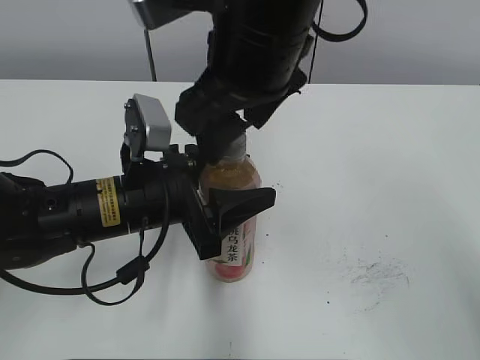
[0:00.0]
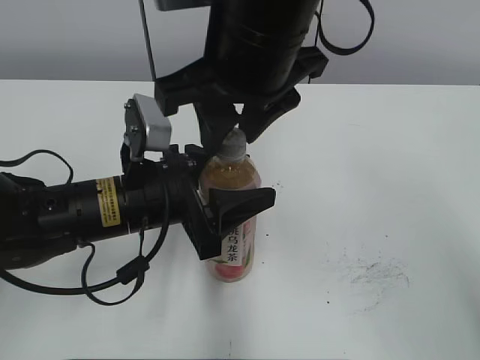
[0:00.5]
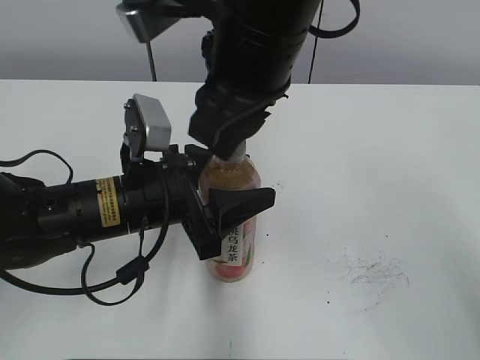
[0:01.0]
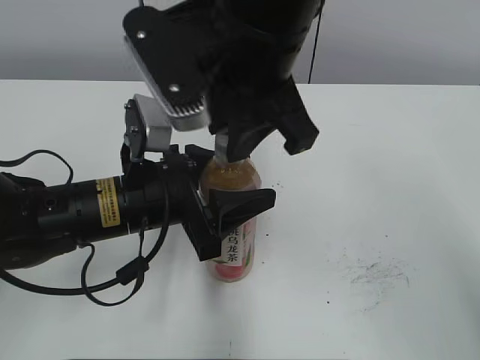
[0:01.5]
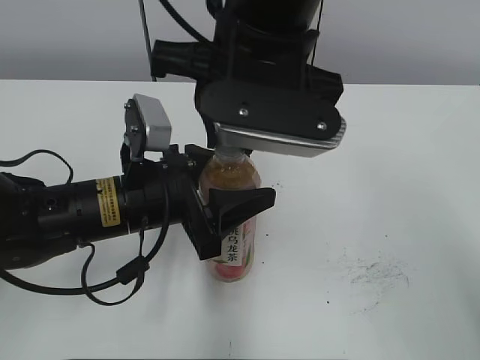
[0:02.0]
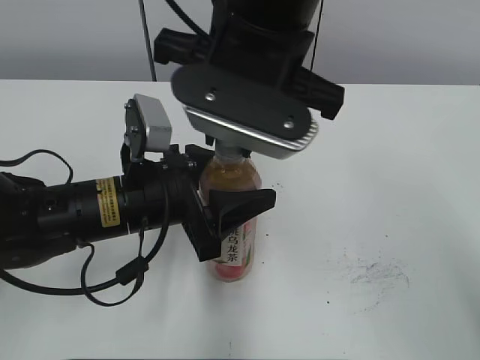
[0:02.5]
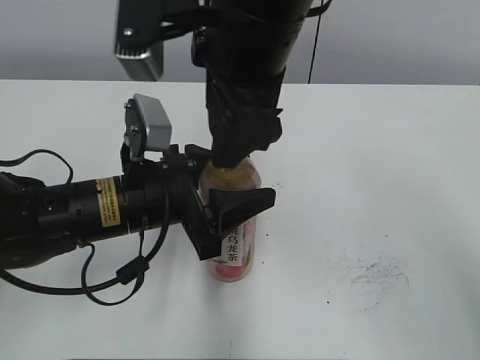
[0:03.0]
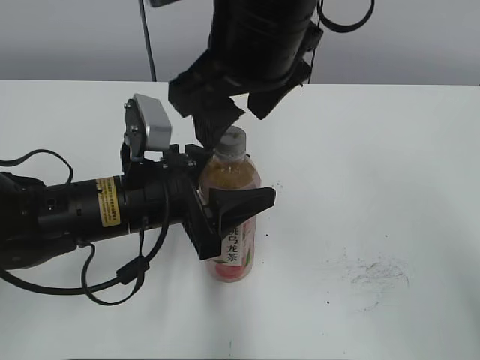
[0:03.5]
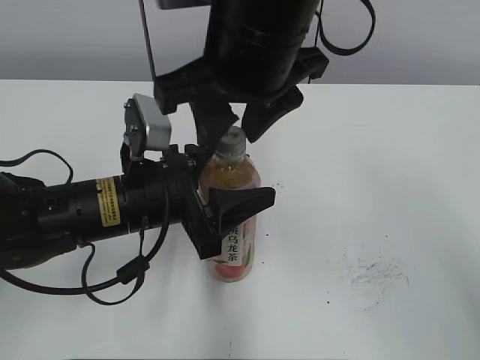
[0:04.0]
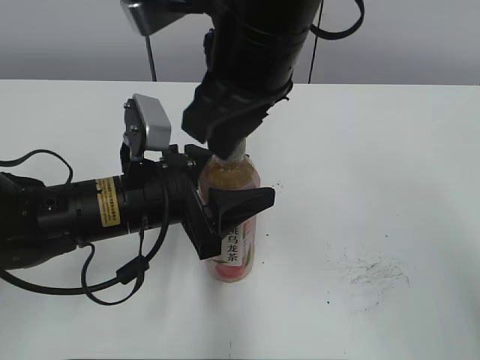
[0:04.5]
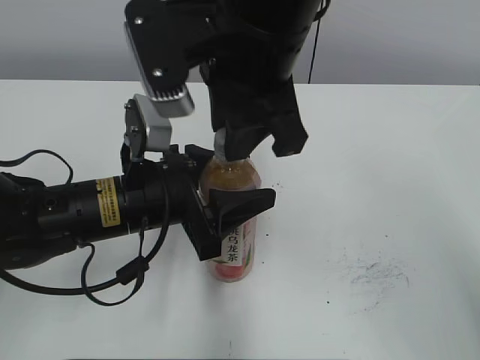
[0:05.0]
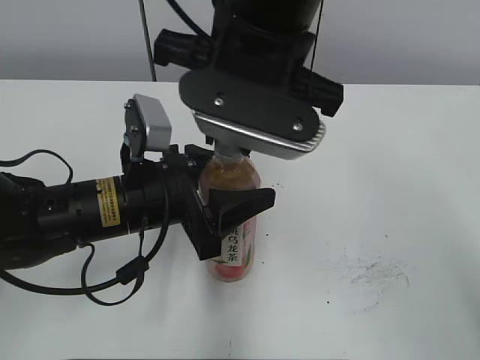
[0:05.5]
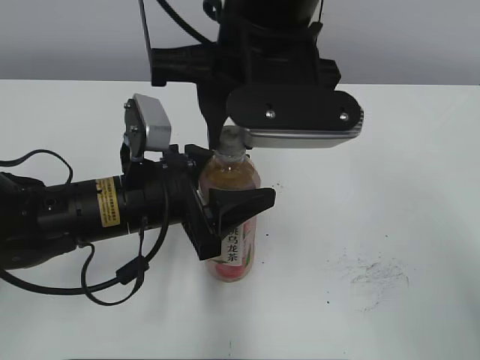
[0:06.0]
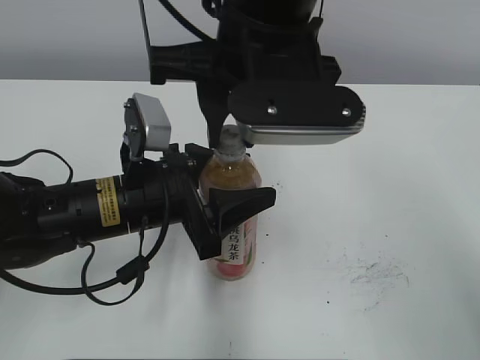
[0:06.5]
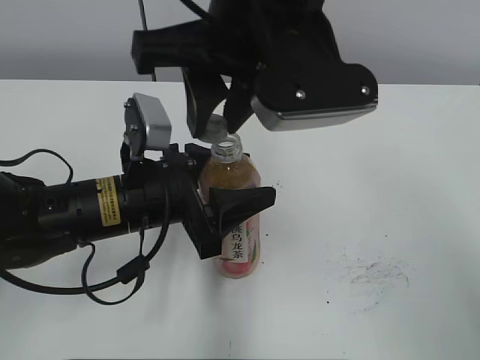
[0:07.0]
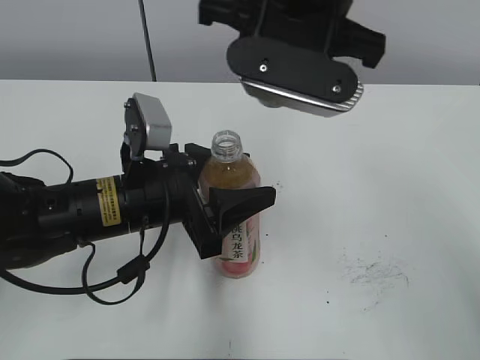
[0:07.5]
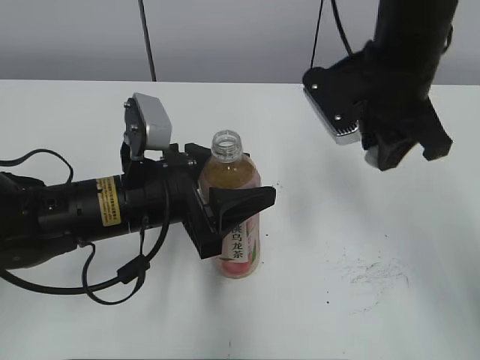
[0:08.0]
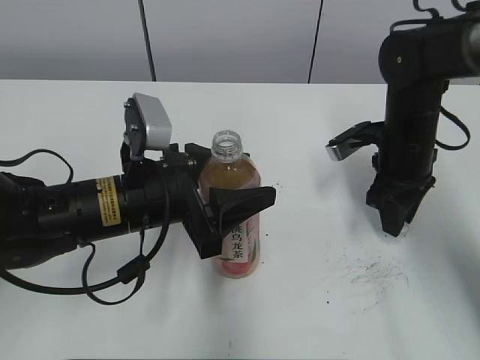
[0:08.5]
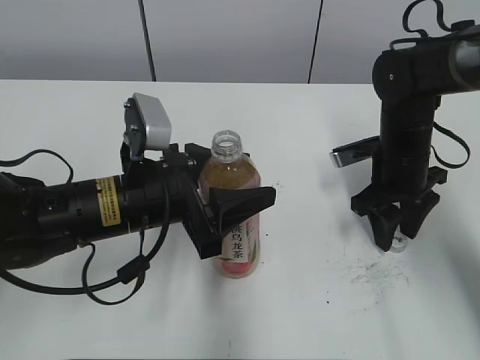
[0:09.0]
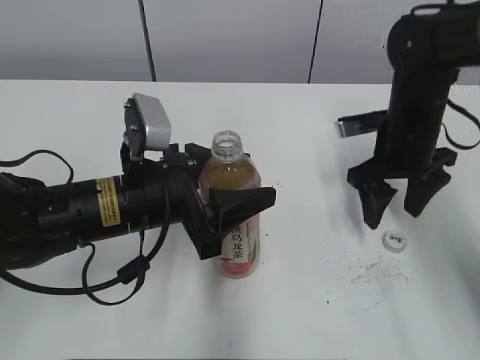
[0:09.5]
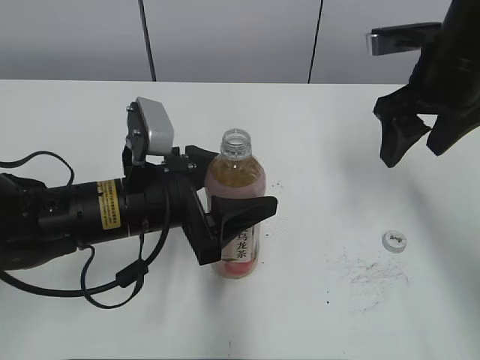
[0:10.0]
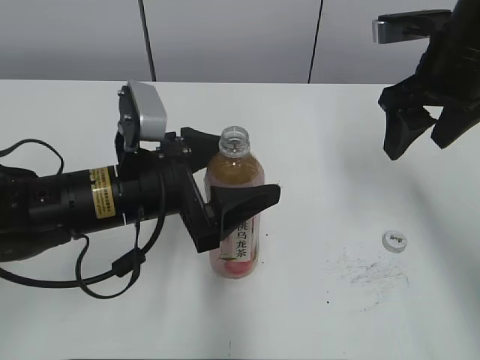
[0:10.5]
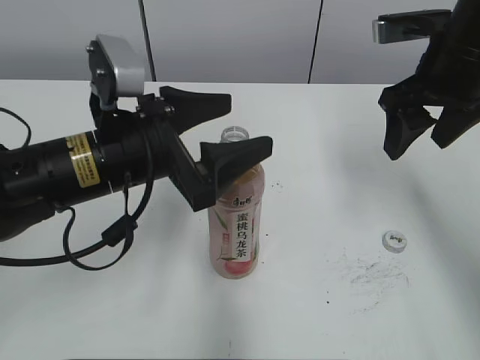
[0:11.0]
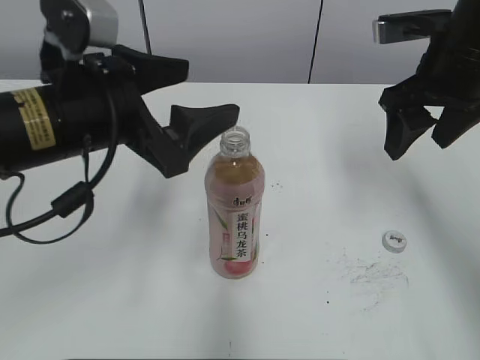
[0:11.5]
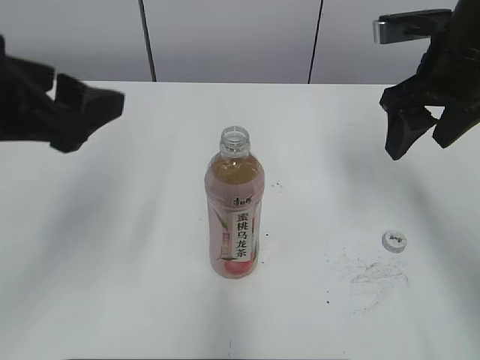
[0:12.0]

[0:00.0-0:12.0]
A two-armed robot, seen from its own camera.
Step, 0:07.5 to 0:09.5: Place the bottle cap on the right.
Step, 0:10.0 to 0:11.5: Place the Peach Oolong Tea with the left hand.
0:00.0 to 0:02.0: The right gripper closes.
0:02.0 to 0:04.0: The right gripper opens up.
0:04.0 to 0:06.0: The right gripper closes its fingers.
0:06.0 to 0:08.0: The right gripper shifts about 15 cm to the right, forward and downward.
0:08.0 to 0:10.0: The left gripper opens up. Meanwhile the right gripper travels to the right by about 5 cm, travels downward and back again, about 15 cm each way, and opens up.
0:10.0 to 0:12.0: The left gripper moves upward and to the left, about 20 cm, and opens.

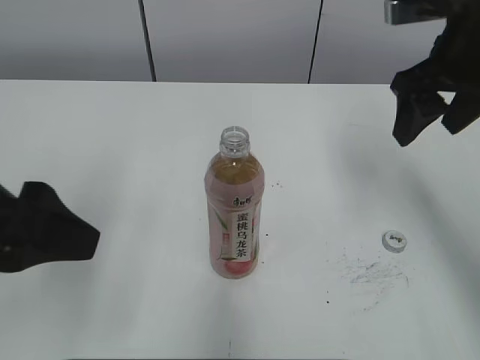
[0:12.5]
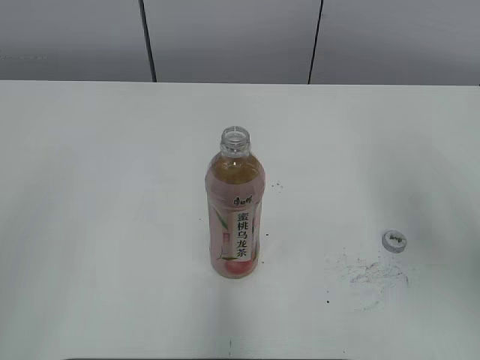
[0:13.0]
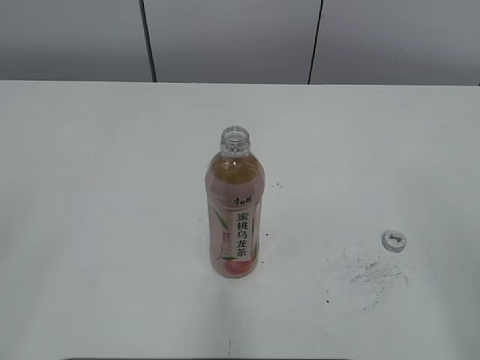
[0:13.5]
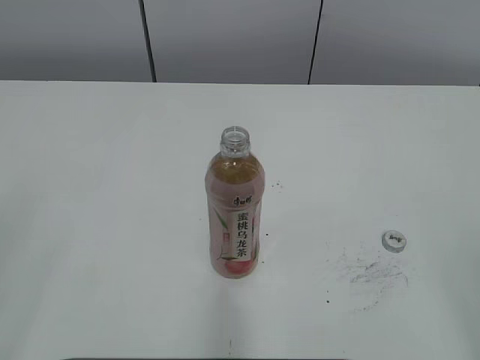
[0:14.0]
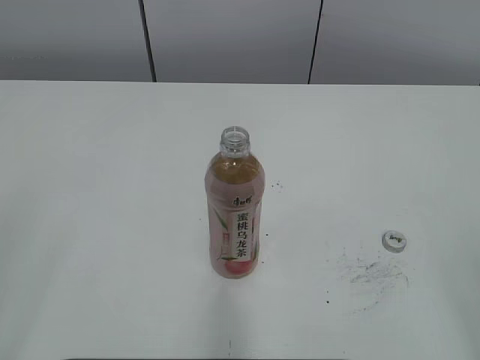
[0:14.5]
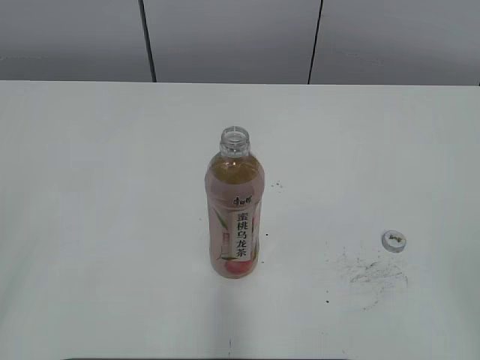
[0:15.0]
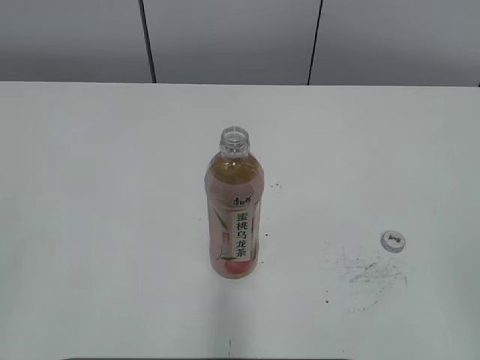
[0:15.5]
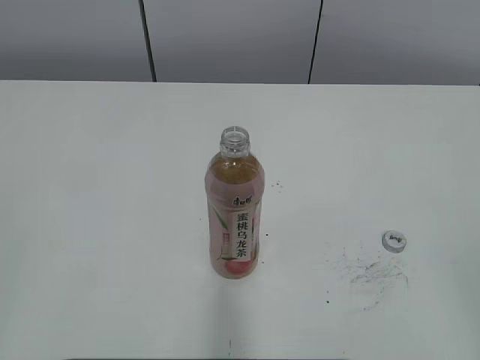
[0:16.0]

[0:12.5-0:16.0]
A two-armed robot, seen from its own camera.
0:12.5 to 0:14.5: The left gripper goes roughly 15 cm backward and to the left, while the right gripper shifts roughly 30 cm backward.

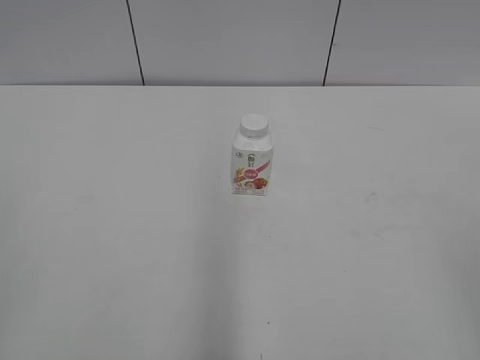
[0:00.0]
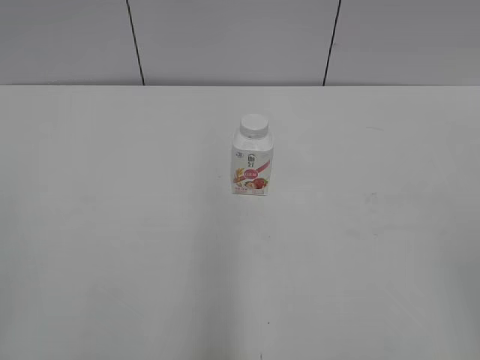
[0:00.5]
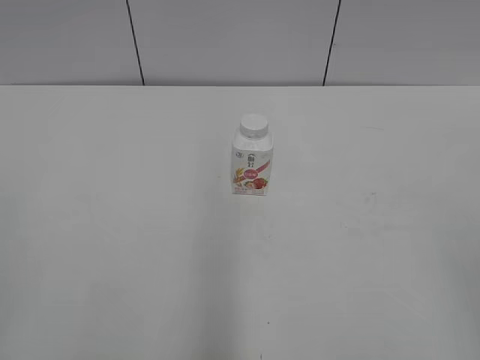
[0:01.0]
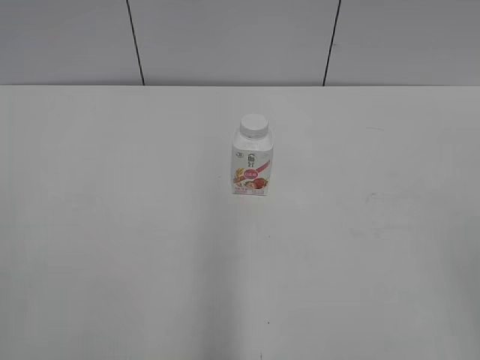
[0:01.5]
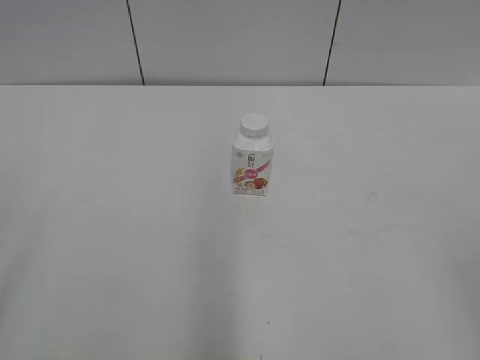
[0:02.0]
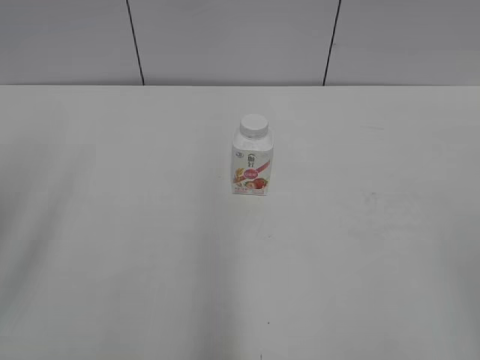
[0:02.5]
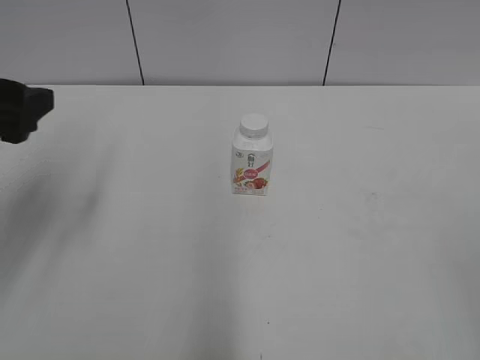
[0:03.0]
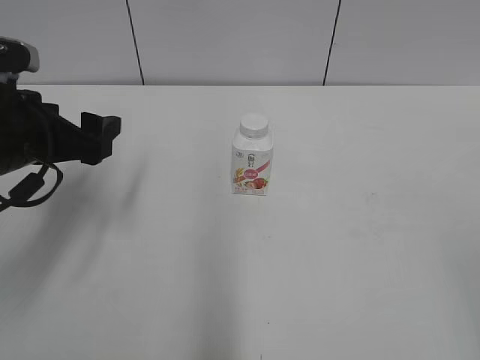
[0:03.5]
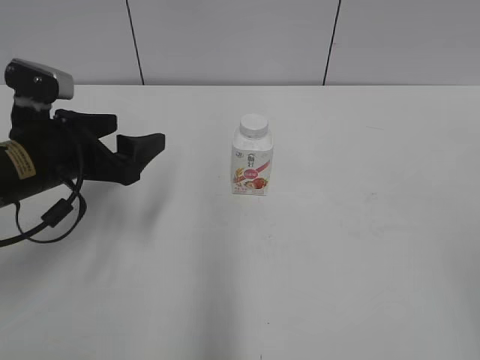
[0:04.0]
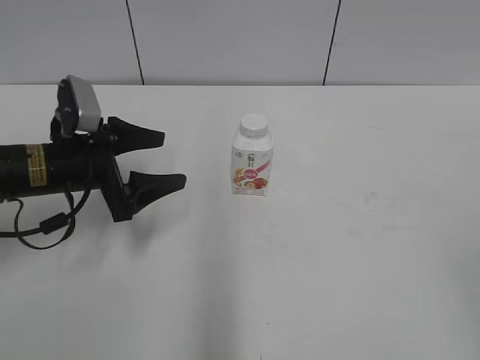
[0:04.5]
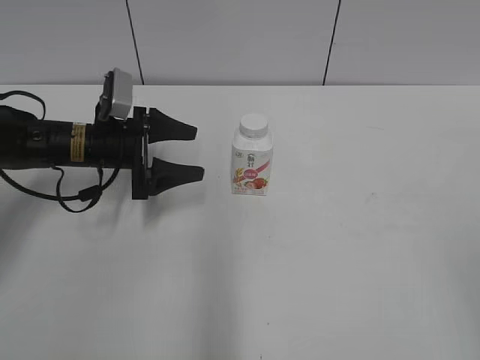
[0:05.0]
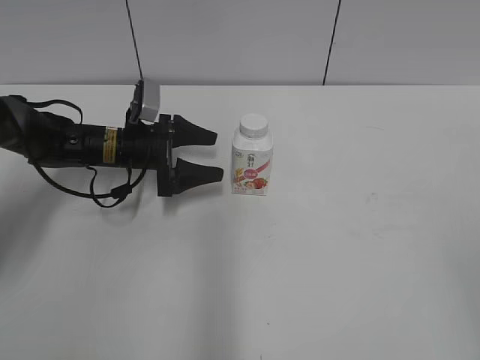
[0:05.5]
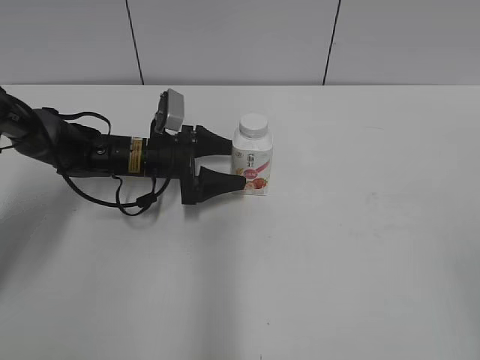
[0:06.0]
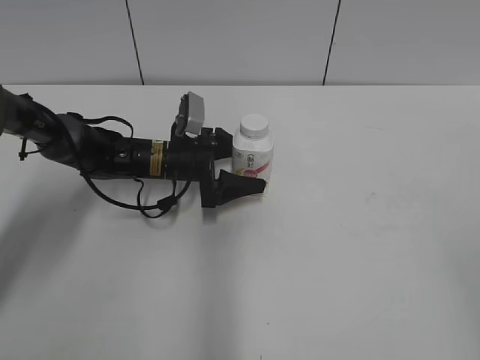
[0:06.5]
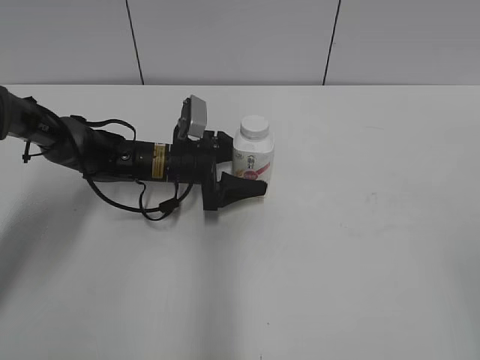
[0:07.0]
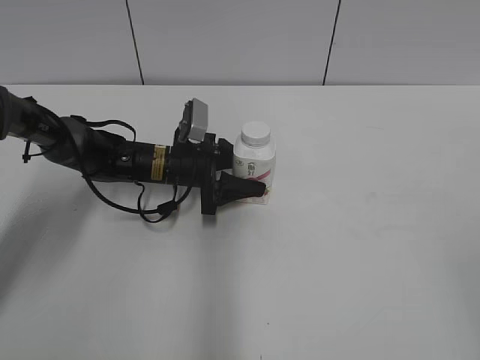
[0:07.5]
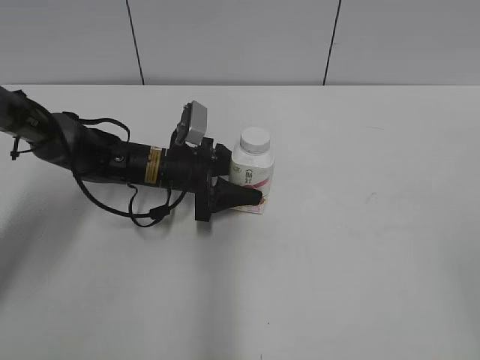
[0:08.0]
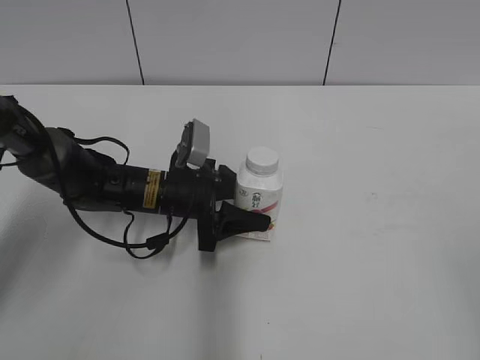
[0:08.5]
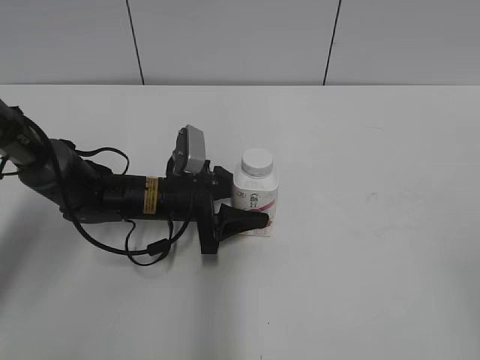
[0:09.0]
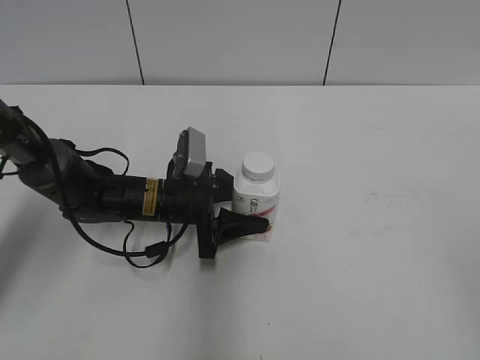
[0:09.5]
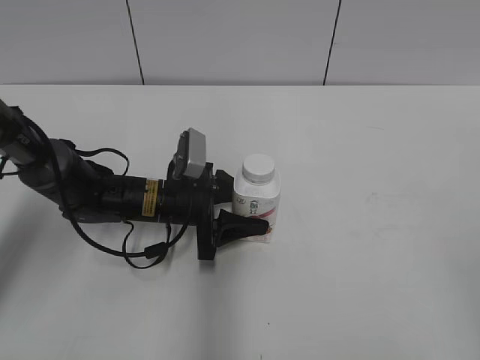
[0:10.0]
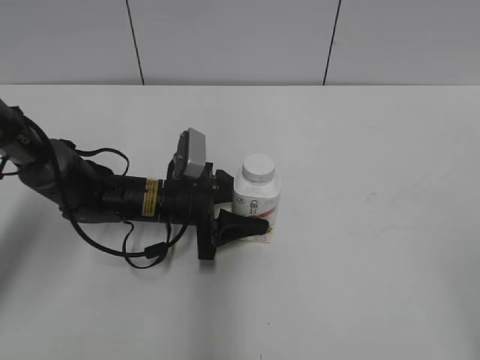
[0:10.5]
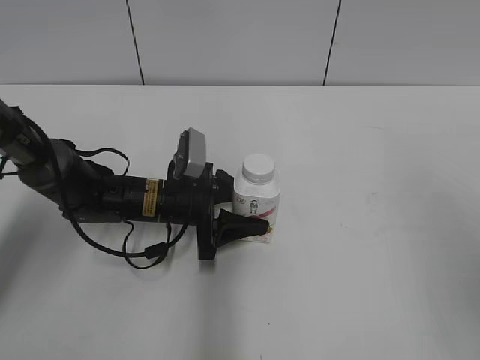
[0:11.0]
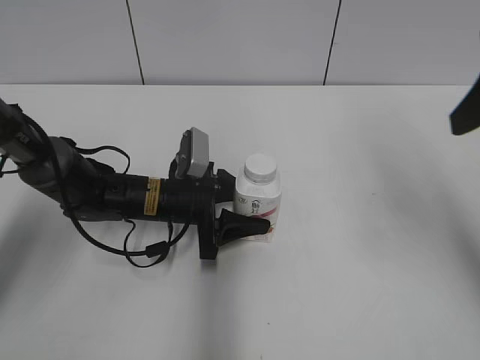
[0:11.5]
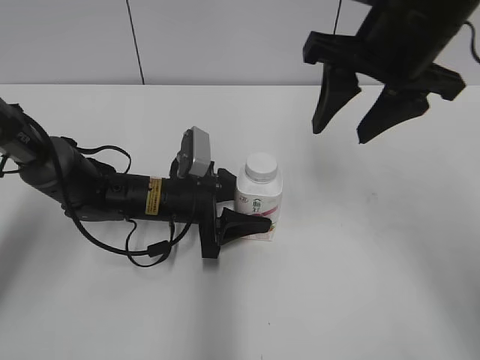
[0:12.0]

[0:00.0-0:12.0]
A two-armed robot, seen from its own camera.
Step, 0:00.0 to 0:07.5: Grab the Yili Changqing with the left hand.
Step, 0:08.0 to 0:09.0: Move the Yili Changqing from left to right.
0:02.0 to 0:04.0: The left gripper heads forward, downward and to the right, covering about 35 cm, and opens.
0:04.0 to 0:06.0: The left gripper travels forward, downward and to the right by approximately 20 cm.
0:06.0 to 0:08.0: The left gripper closes up.
0:08.0 to 0:10.0: The left gripper goes approximately 5 cm backward.
0:10.0 to 0:12.0: The right gripper heads forward and to the left, covering some 35 cm.
